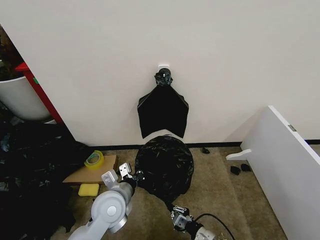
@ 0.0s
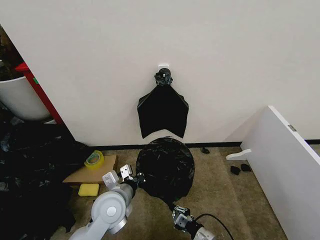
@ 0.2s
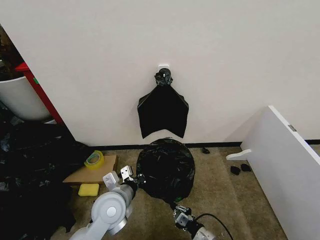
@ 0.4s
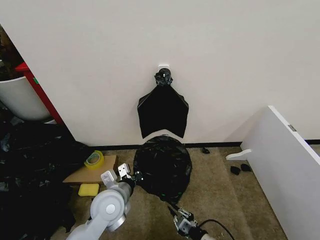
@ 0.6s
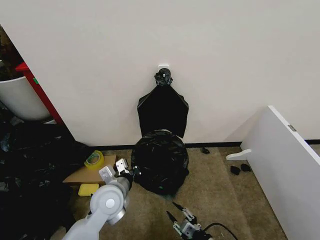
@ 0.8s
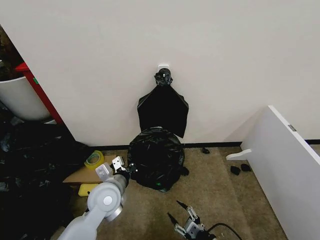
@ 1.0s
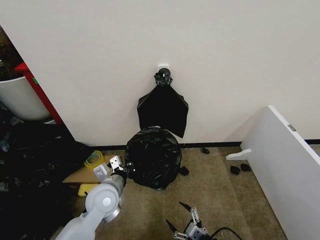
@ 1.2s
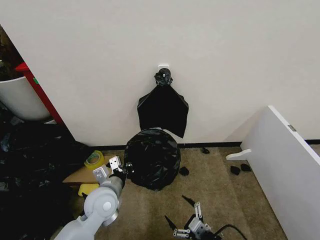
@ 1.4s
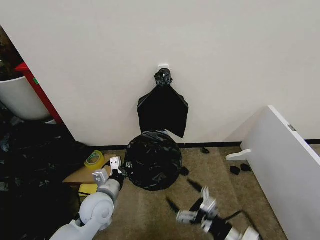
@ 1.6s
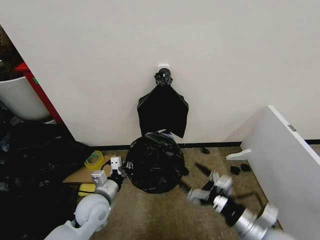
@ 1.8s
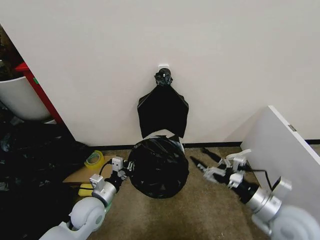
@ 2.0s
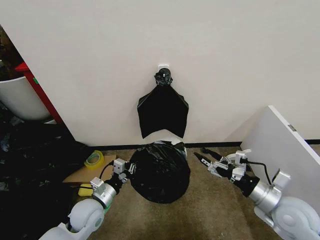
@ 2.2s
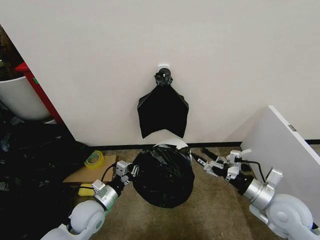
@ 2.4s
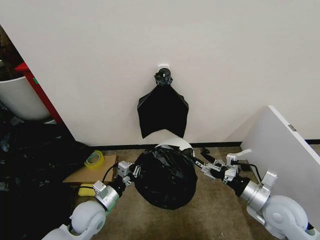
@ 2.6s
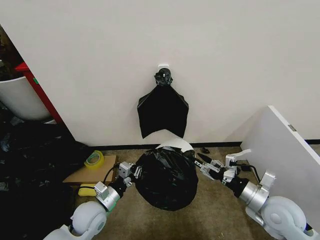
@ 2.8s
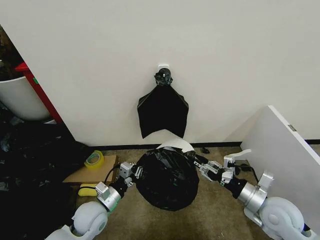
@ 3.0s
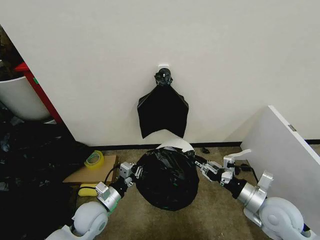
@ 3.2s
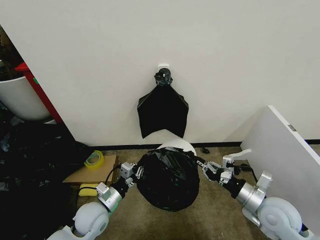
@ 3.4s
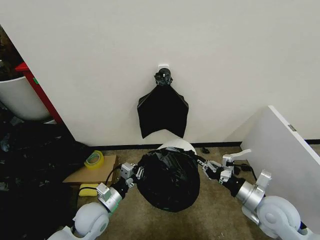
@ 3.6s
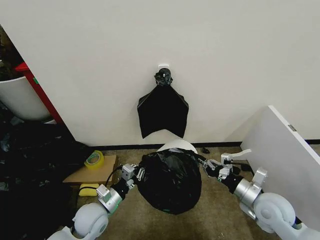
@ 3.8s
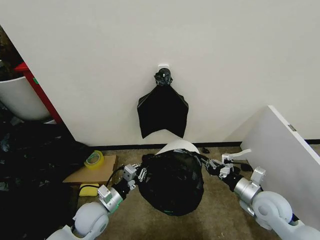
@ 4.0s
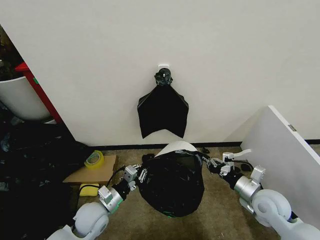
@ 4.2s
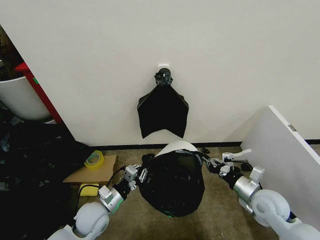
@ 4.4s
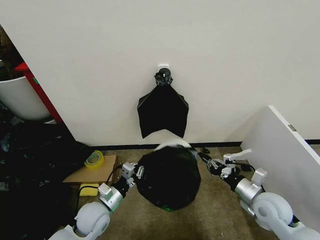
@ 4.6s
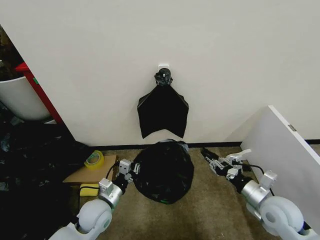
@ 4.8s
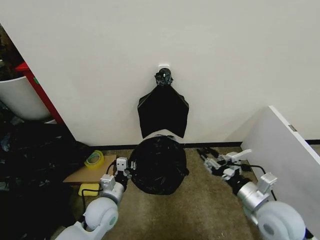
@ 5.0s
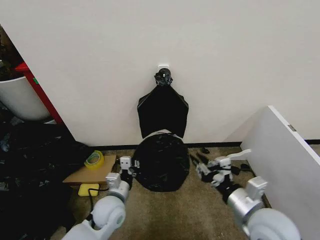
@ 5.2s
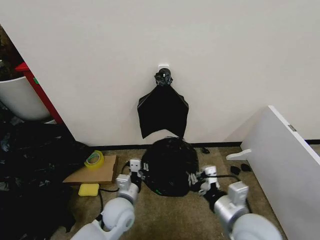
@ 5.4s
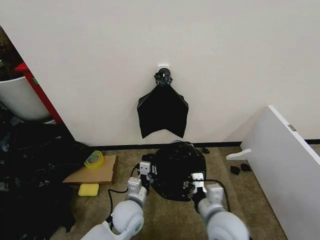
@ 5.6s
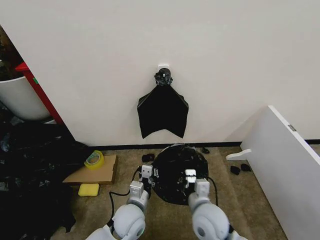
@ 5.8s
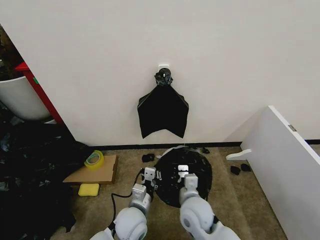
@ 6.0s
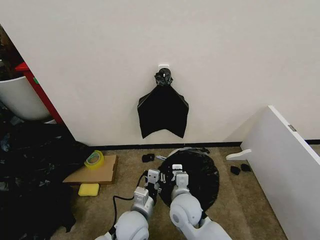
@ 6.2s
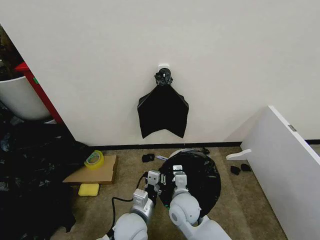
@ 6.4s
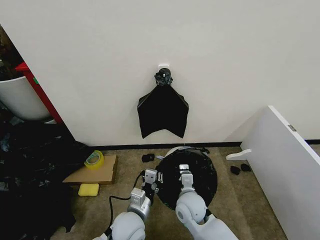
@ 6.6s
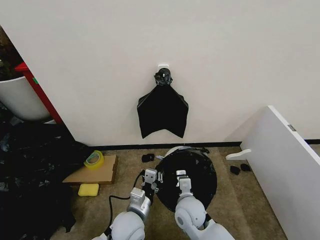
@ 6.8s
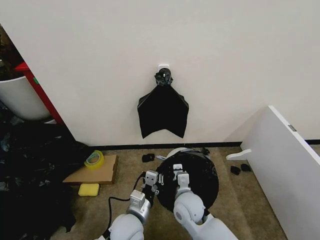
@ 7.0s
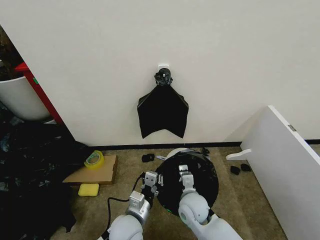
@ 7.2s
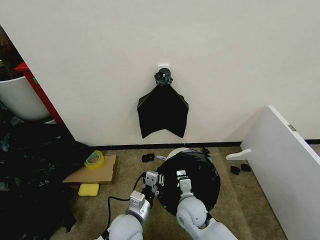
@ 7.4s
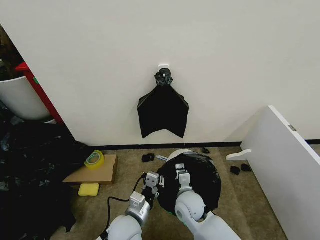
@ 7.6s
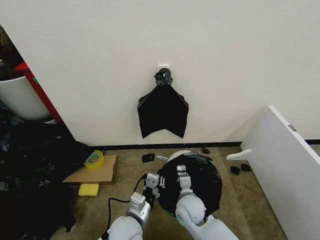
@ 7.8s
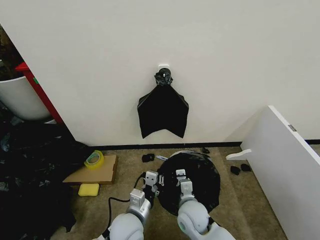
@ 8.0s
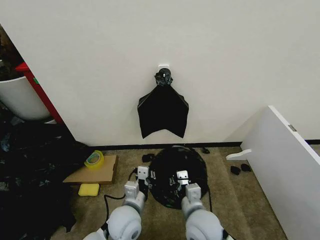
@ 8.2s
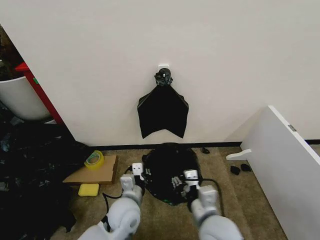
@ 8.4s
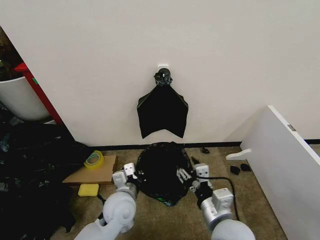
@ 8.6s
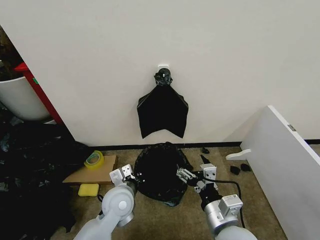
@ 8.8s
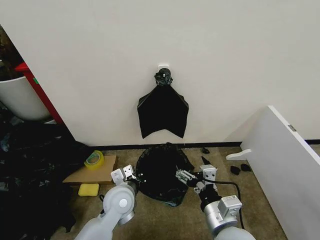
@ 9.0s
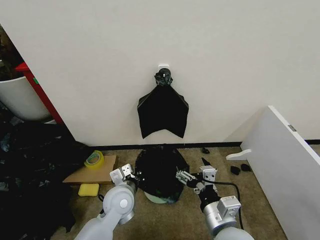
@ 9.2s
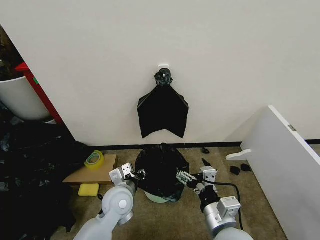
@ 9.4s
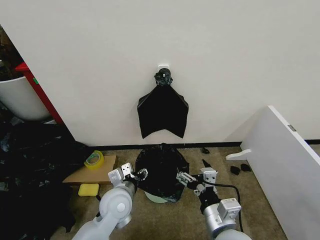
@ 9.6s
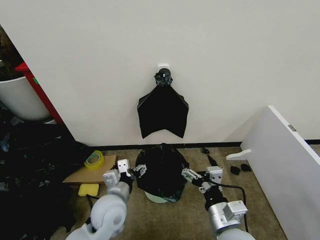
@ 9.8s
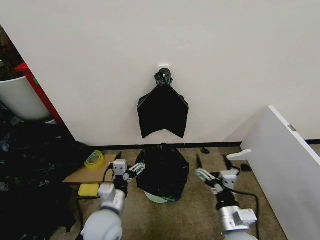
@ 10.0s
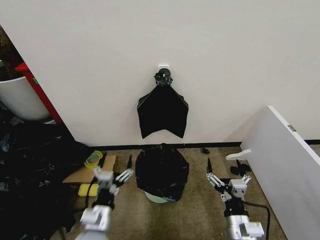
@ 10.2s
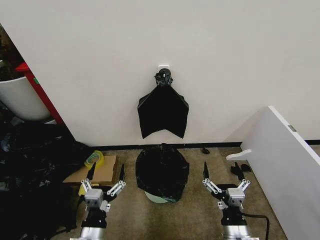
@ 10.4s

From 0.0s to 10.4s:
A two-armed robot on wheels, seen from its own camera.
Task of the whole recording: Place the garbage bag over the trash bin.
From 0.0s to 1.4s: The right gripper heads upward and backward, covering approximately 10 cm, and opens its fingers.
From 1.4s to 3.0s: The left gripper goes roughly 5 cm downward; the right gripper moves upward, forward and to the right, some 20 cm, and closes up.
From 3.0s to 4.4s: The right gripper moves some 5 cm, and closes its fingers.
From 4.4s to 6.0s: The right gripper goes about 25 cm to the left, and opens, then closes again. The left gripper goes approximately 15 cm to the right.
From 6.0s to 7.4s: The right gripper shifts about 5 cm downward.
From 7.4s to 9.0s: The right gripper goes some 20 cm upward, backward and to the right, and opens its fingers. The left gripper shifts about 5 cm forward.
From 9.0s to 10.4s: The right gripper travels downward by some 10 cm, while the left gripper shifts approximately 15 cm backward, and opens its fingers.

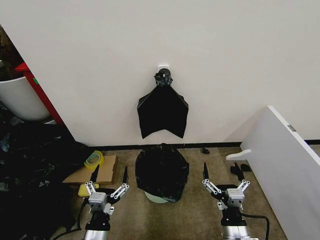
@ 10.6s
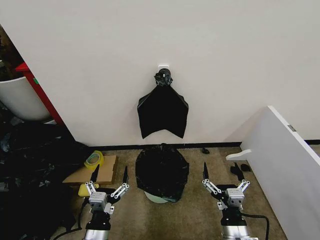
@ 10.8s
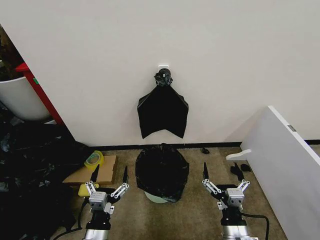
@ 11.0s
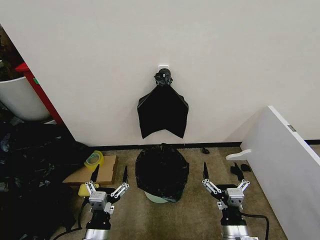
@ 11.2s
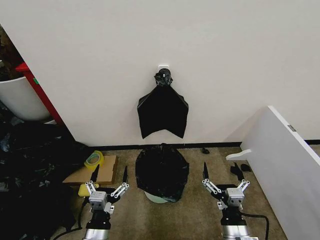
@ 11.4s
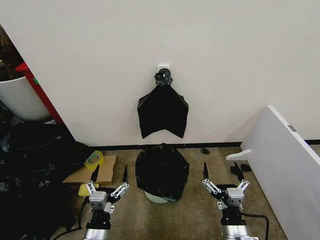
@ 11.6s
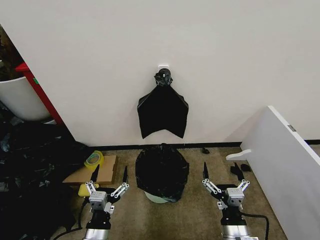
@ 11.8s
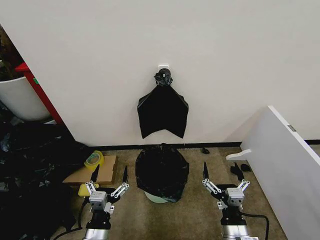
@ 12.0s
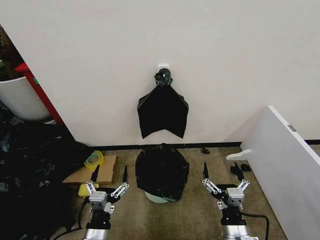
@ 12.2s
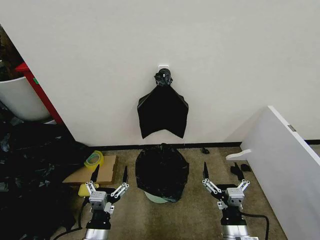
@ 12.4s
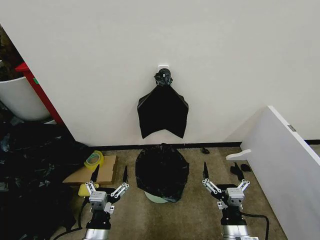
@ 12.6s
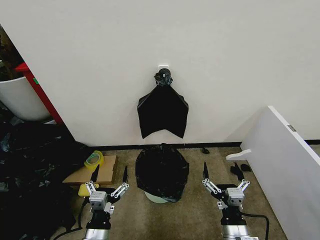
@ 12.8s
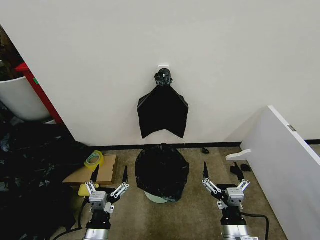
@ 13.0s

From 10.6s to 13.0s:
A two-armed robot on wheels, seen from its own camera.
Task of the whole recording: Place the garbage bag over the trash bin.
From 10.6s to 13.0s: Neither gripper changes place.

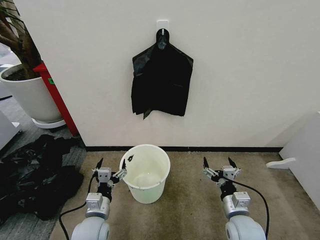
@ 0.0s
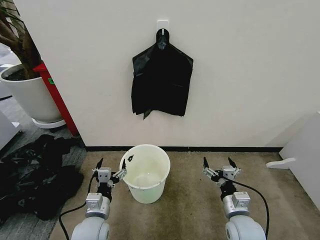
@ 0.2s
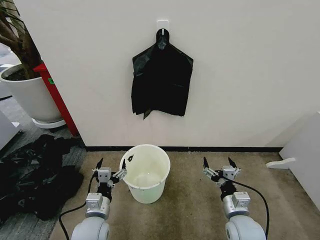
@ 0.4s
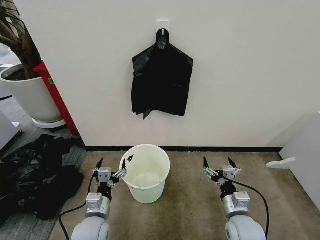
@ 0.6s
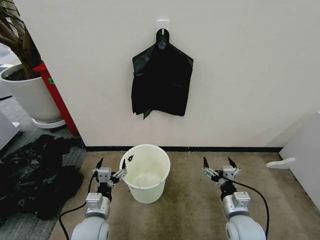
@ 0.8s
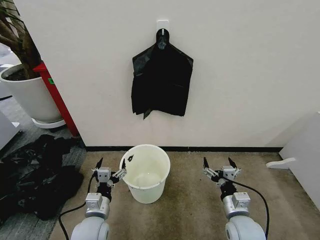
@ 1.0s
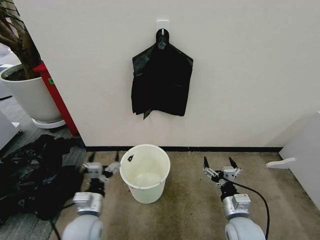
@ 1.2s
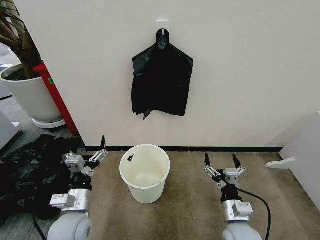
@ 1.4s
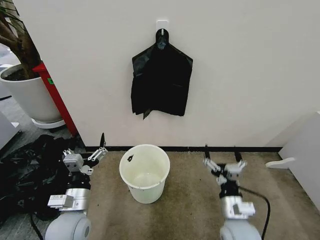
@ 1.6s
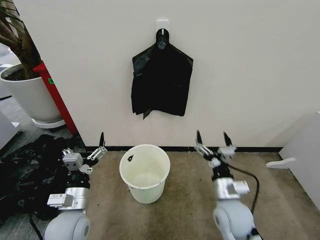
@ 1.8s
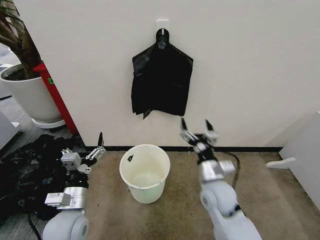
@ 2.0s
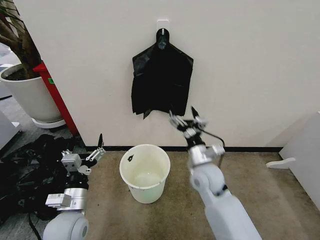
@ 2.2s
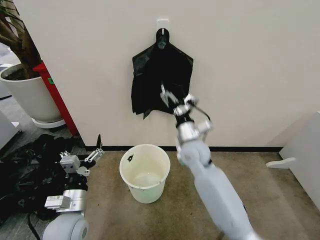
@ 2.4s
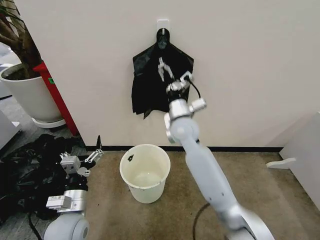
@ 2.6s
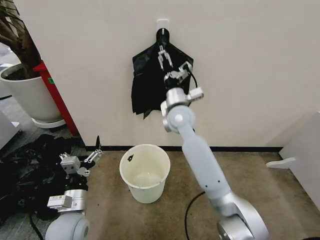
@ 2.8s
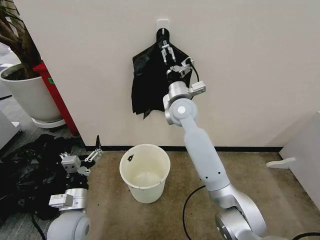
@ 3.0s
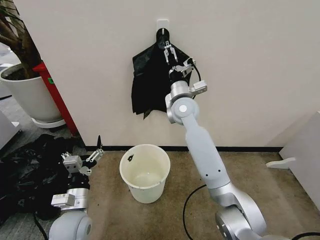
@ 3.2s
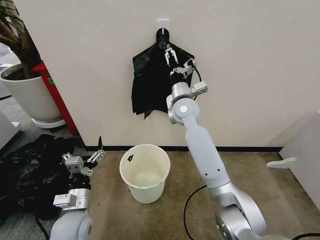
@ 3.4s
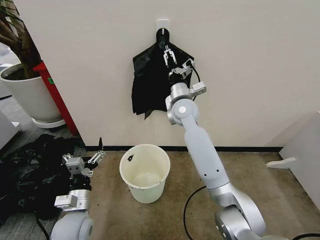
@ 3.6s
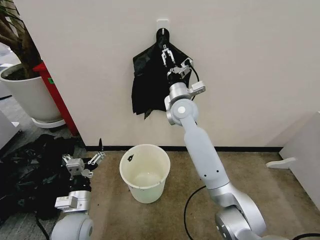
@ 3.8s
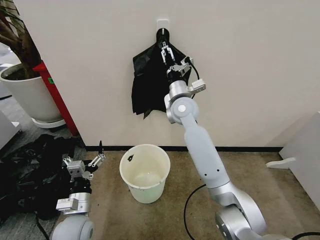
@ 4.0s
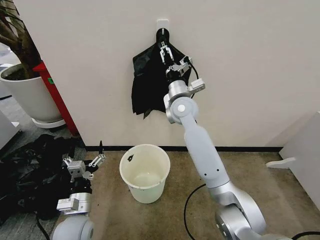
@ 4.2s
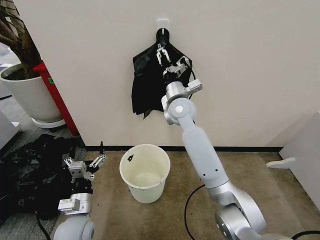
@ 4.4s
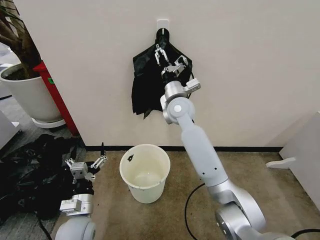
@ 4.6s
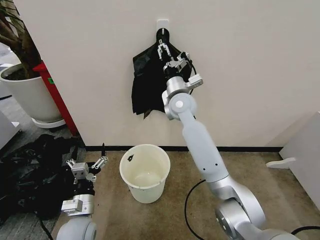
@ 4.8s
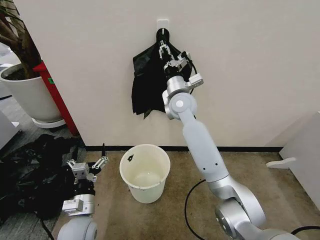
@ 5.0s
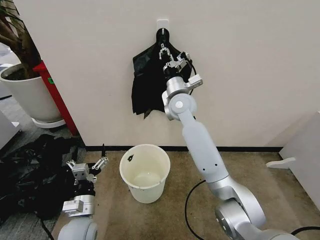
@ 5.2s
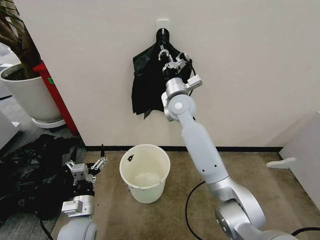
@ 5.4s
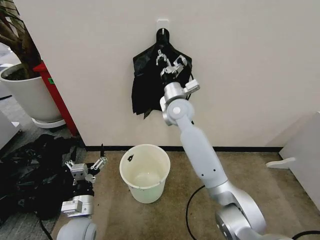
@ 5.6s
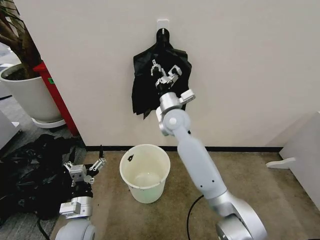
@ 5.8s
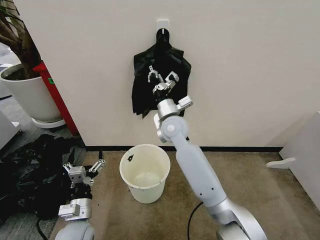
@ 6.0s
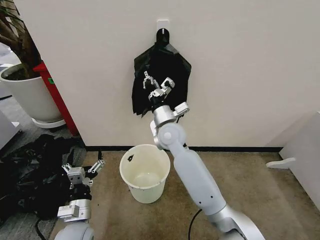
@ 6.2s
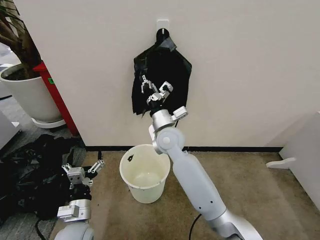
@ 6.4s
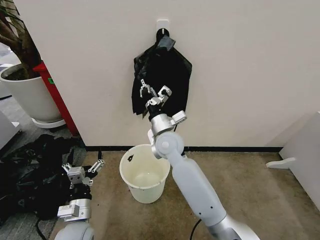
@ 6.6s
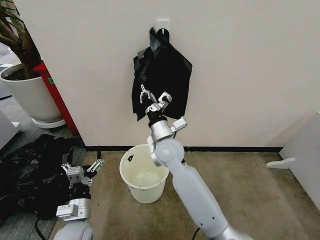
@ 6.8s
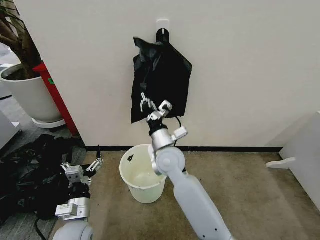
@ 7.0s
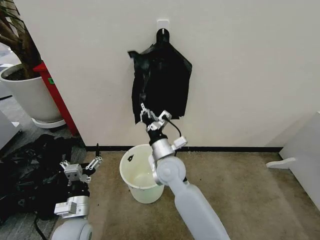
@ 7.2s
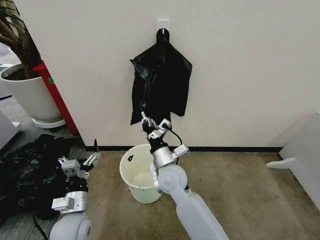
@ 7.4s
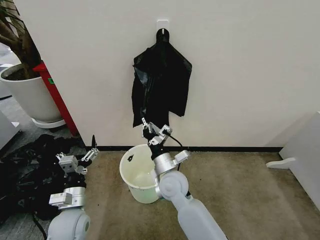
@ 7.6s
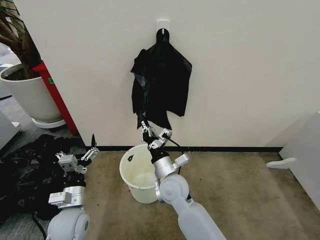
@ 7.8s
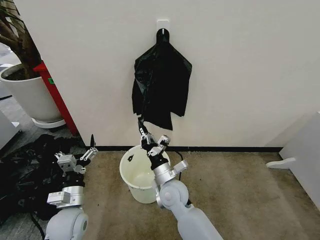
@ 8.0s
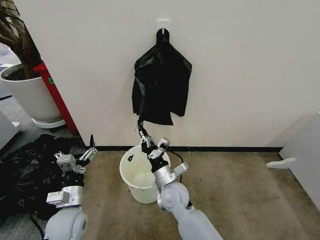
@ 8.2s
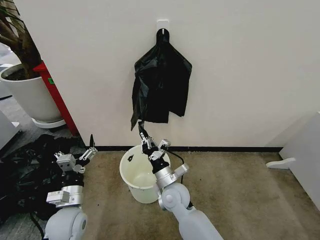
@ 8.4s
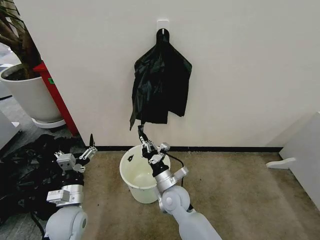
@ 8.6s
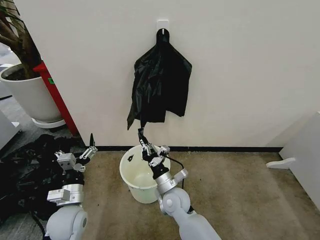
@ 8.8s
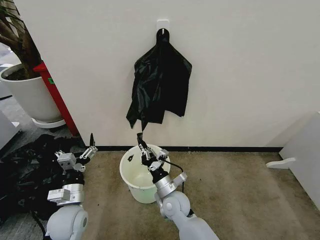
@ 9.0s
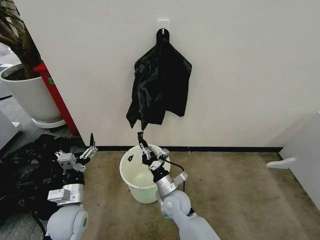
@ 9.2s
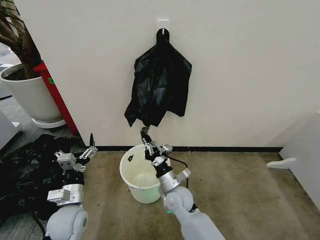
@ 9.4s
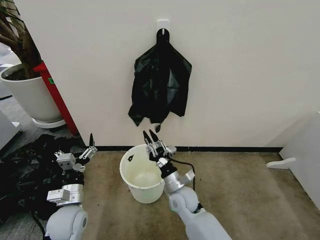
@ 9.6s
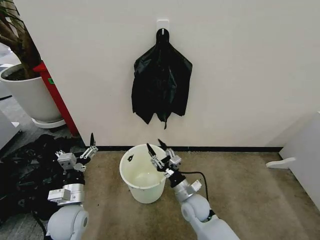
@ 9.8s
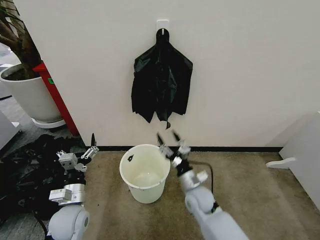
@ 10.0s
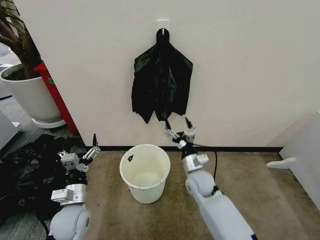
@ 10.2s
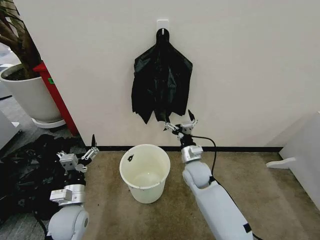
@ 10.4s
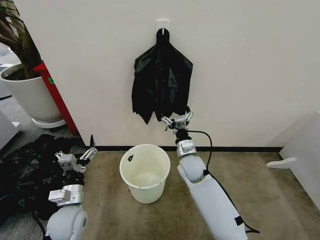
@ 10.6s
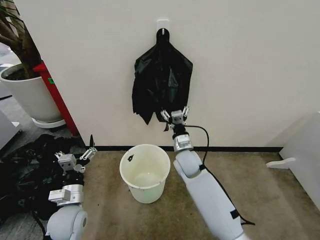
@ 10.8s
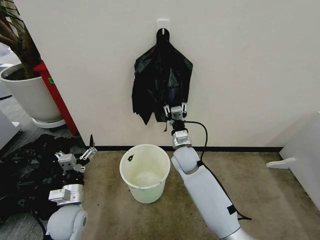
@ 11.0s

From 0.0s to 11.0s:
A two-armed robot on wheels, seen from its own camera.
Task of the whole recording: Place the garbage bag over the trash bin.
From 1.6s to 3.2s: The right gripper shifts some 40 cm forward, upward and to the left.
From 3.2s to 4.8s: The right gripper closes up.
From 4.8s to 6.2s: The right gripper shifts some 10 cm downward and backward, and closes its fingers.
From 6.2s to 7.8s: The right gripper travels backward and downward by about 15 cm.
From 7.8s to 9.4s: The right gripper goes roughly 5 cm downward.
From 9.4s to 11.0s: The right gripper moves forward and upward, approximately 15 cm, and opens up.
